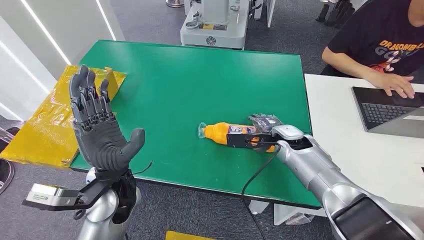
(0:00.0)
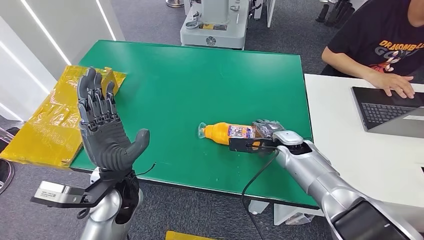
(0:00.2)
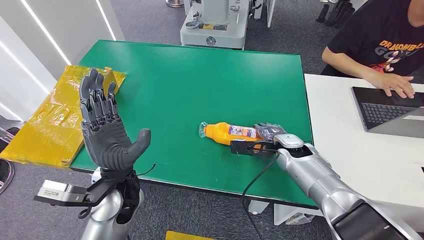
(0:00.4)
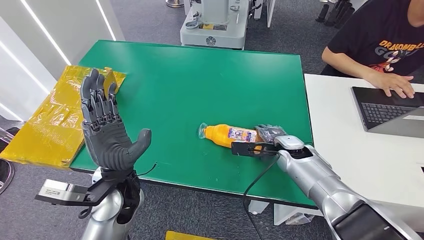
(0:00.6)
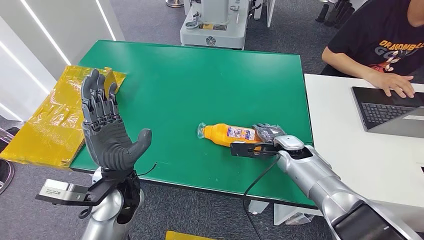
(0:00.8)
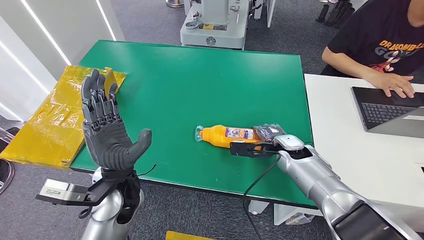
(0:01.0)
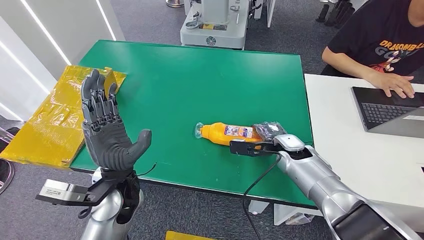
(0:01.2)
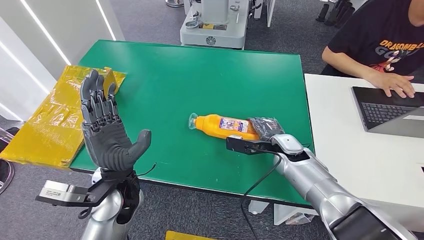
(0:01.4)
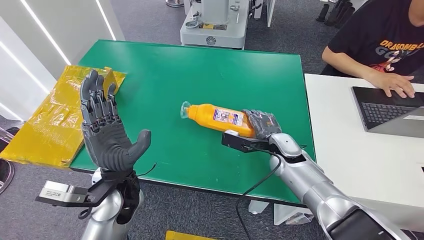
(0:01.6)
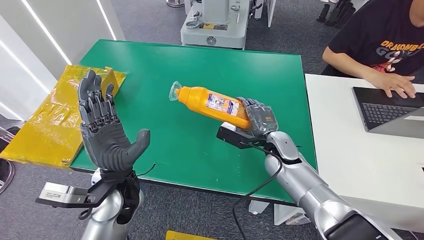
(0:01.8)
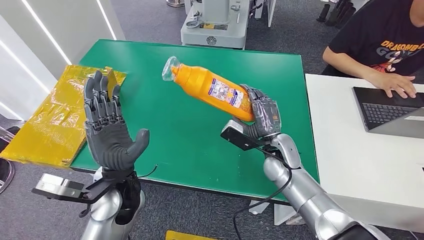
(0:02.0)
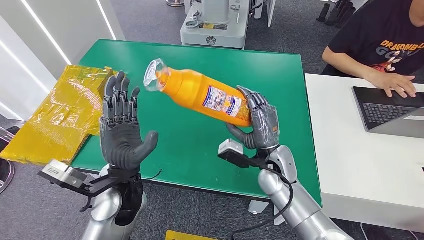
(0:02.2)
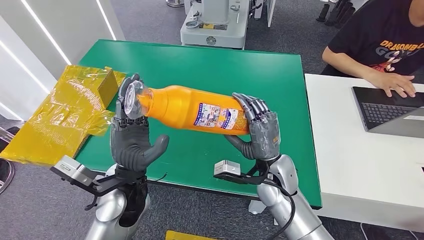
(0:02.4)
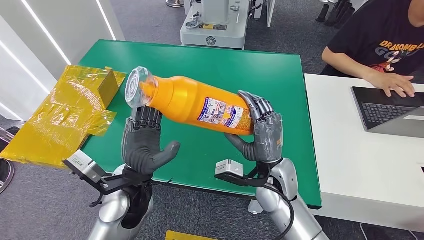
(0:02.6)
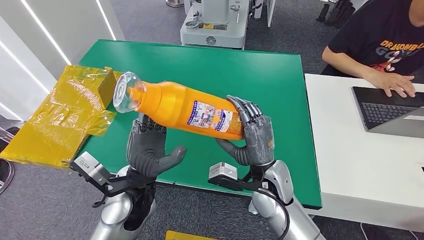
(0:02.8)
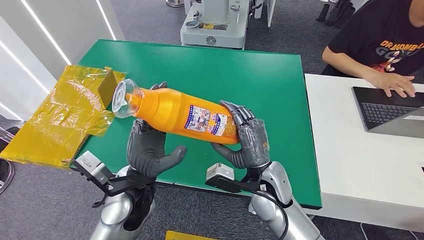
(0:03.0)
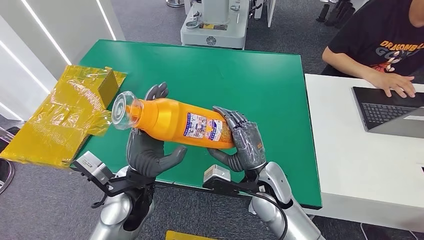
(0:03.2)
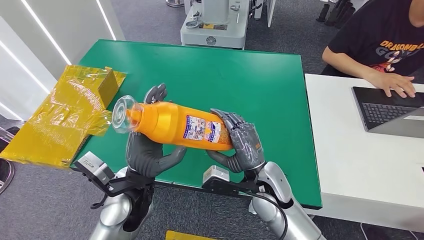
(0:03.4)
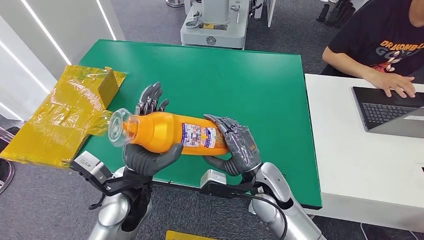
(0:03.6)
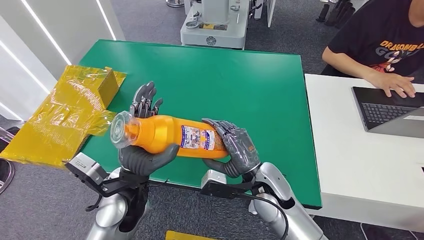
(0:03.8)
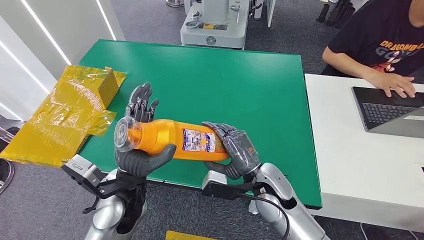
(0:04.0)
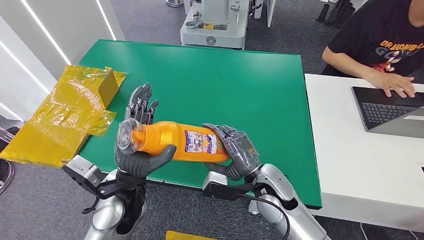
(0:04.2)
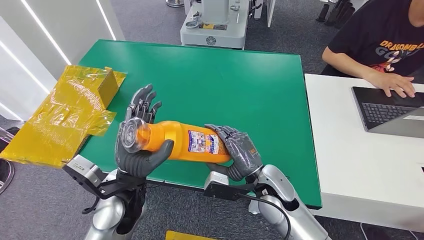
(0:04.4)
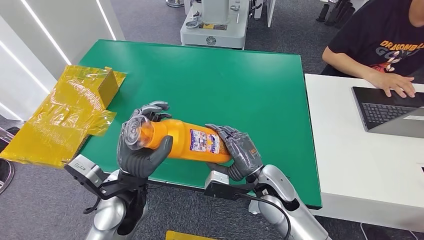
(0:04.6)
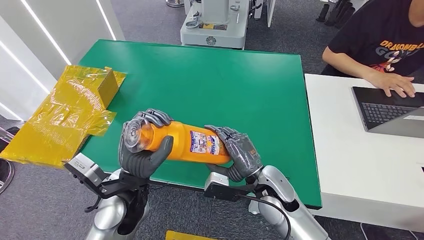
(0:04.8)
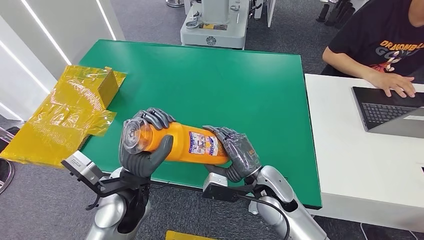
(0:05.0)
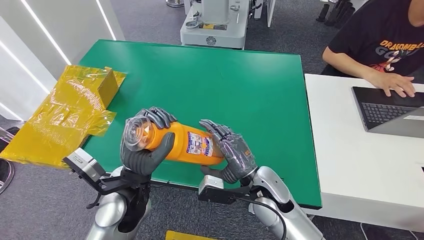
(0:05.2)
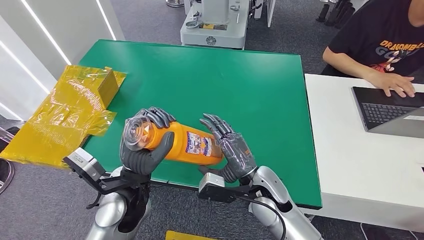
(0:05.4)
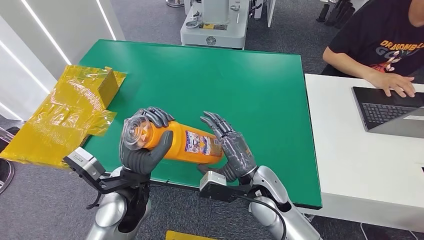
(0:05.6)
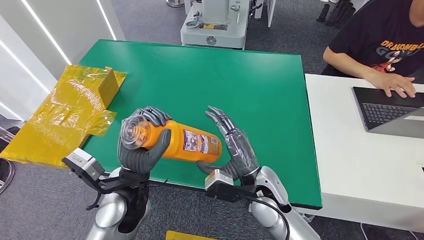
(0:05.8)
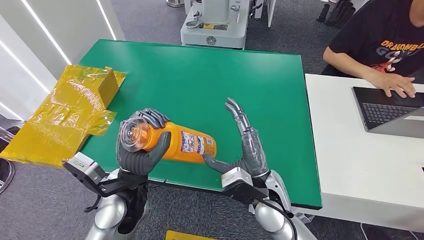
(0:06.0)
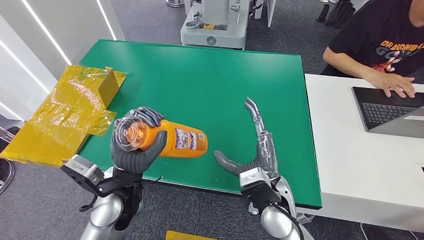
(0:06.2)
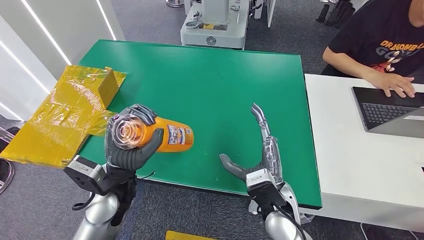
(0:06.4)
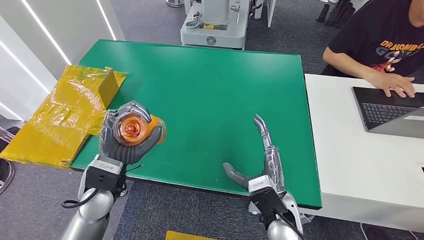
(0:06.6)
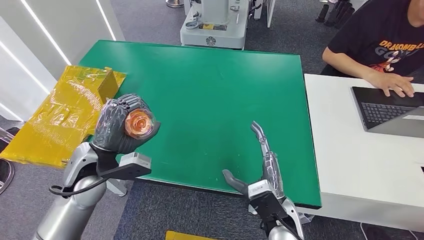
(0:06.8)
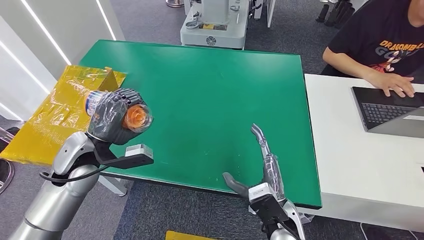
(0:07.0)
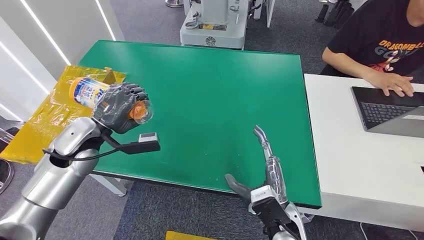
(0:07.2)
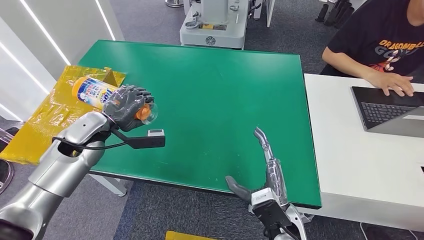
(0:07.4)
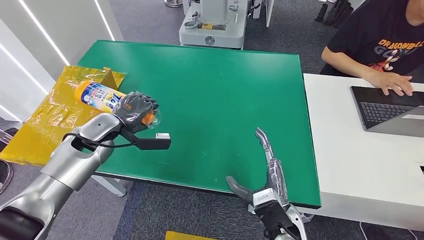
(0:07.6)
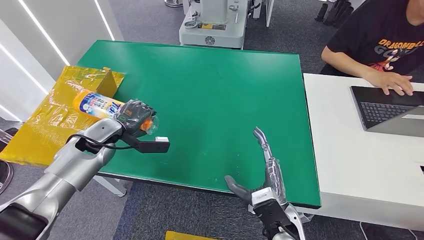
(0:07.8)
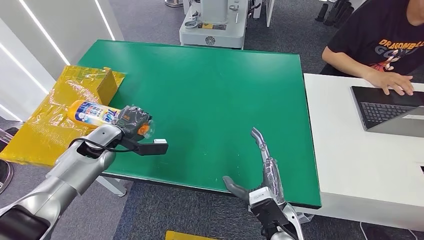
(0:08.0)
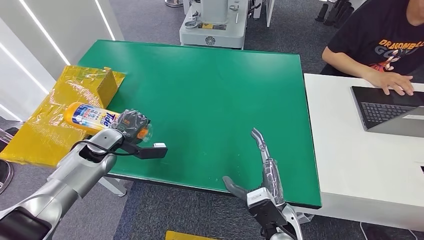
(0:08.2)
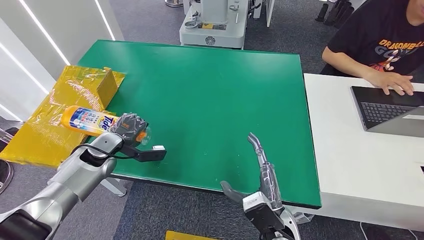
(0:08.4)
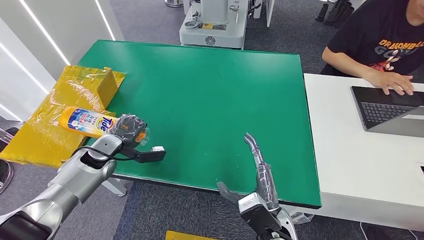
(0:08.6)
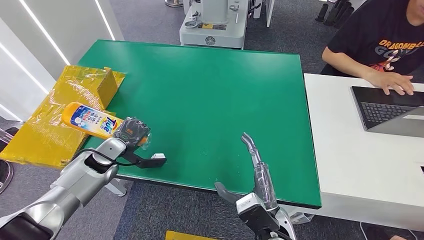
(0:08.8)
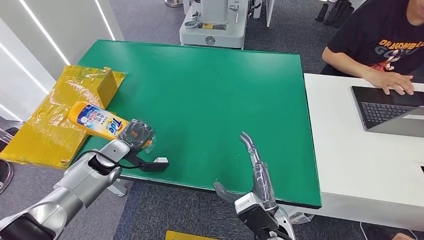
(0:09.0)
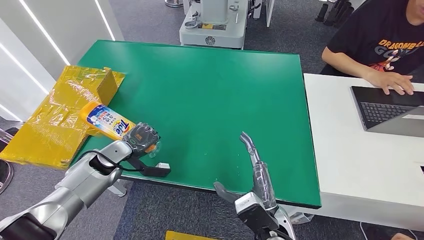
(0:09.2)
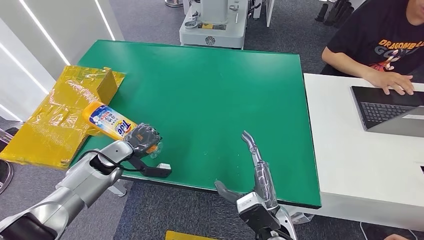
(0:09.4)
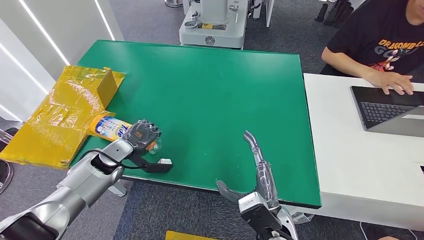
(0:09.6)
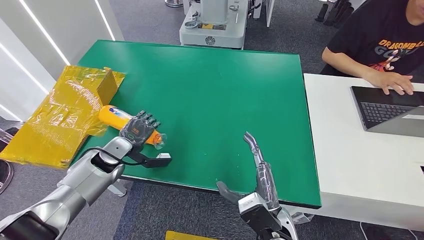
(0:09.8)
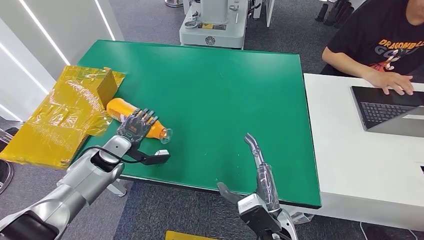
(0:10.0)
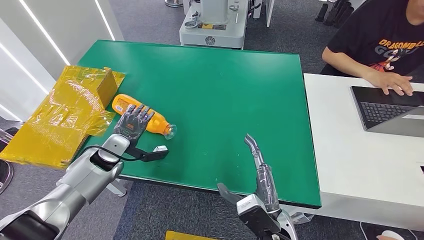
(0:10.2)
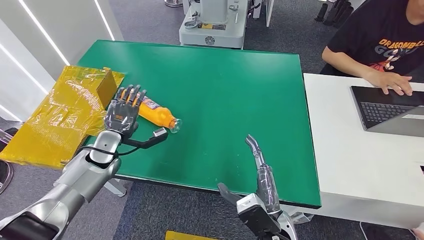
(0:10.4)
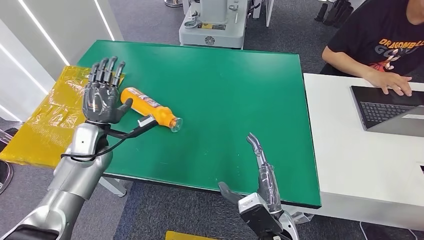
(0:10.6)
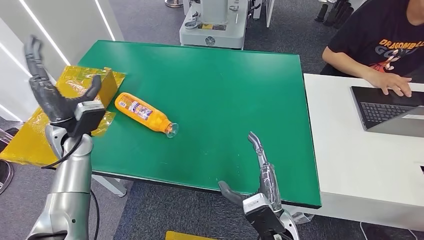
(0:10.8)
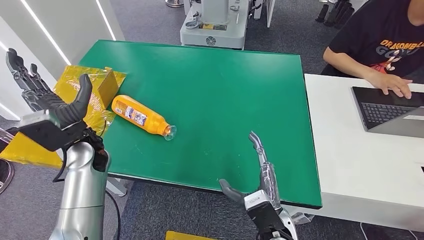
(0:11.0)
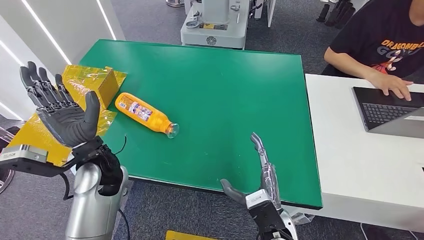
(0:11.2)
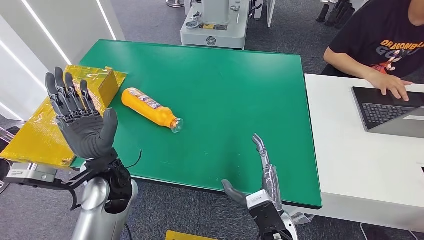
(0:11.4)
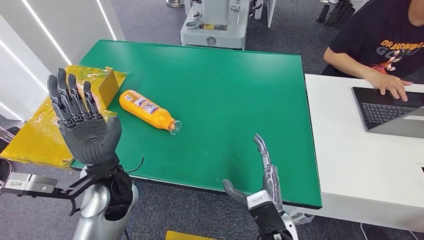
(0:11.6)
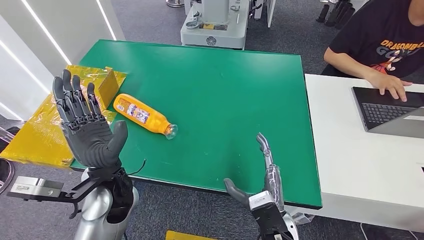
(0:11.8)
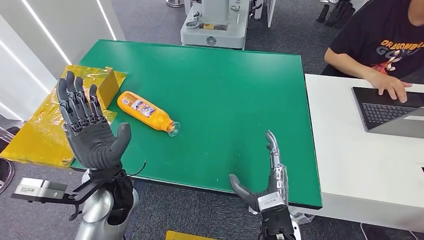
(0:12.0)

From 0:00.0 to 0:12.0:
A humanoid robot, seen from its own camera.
Step, from 0:00.0 to 0:03.0: Pick up the bottle from the table.
Step, from 0:03.2 to 0:12.0: Turn the bottle to the front side.
From 0:07.6 to 0:09.0: The left hand shifts approximately 10 cm downward and backward.
